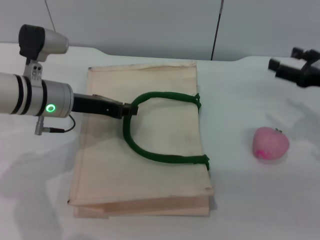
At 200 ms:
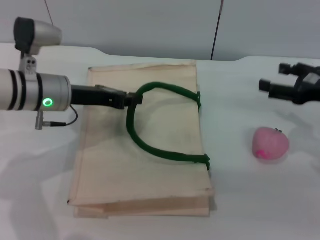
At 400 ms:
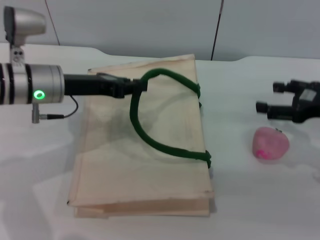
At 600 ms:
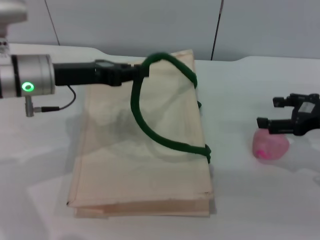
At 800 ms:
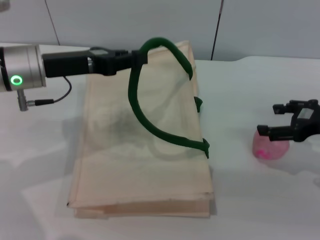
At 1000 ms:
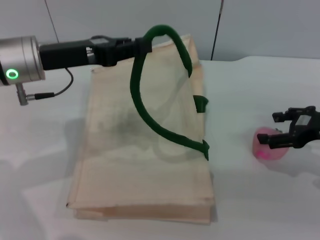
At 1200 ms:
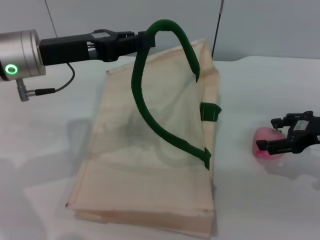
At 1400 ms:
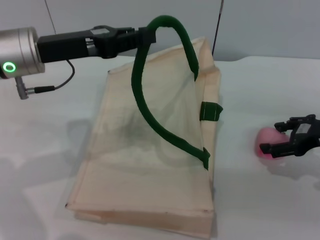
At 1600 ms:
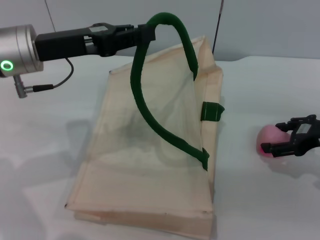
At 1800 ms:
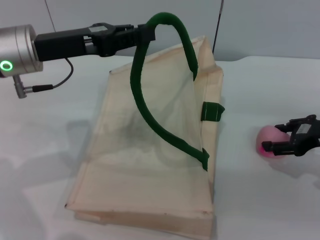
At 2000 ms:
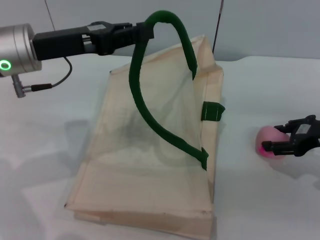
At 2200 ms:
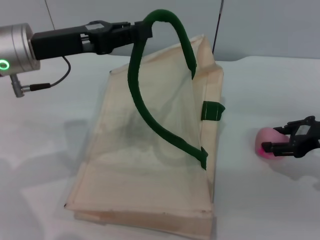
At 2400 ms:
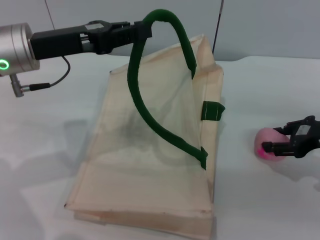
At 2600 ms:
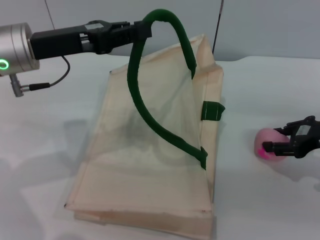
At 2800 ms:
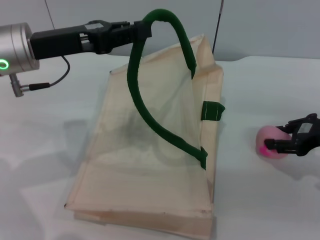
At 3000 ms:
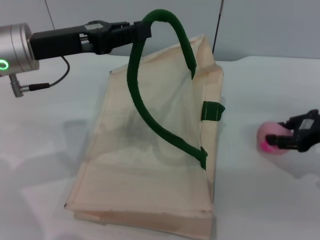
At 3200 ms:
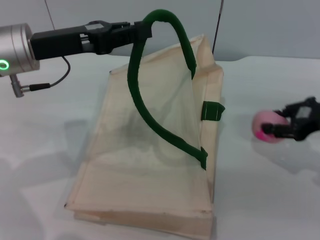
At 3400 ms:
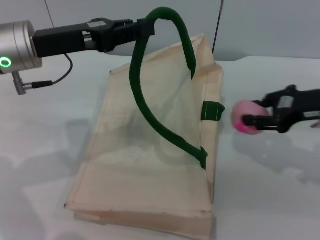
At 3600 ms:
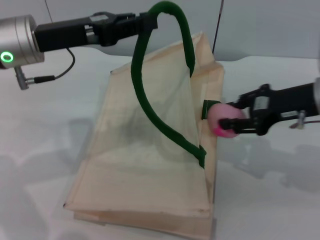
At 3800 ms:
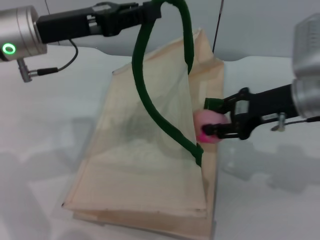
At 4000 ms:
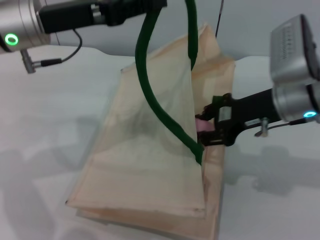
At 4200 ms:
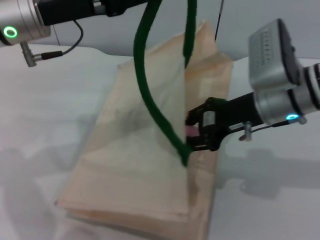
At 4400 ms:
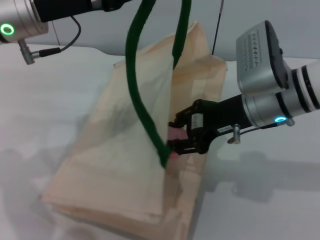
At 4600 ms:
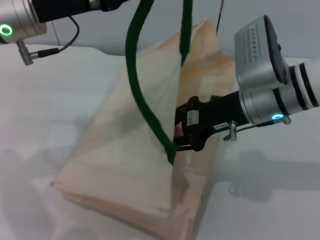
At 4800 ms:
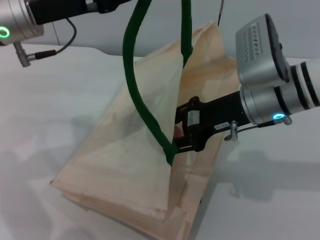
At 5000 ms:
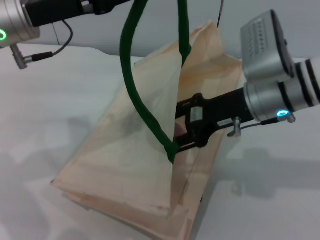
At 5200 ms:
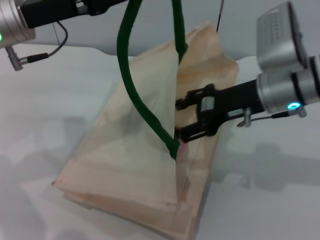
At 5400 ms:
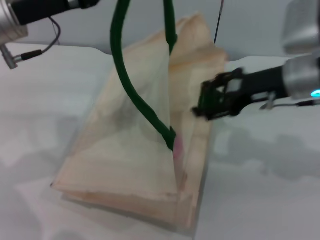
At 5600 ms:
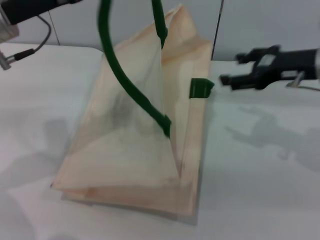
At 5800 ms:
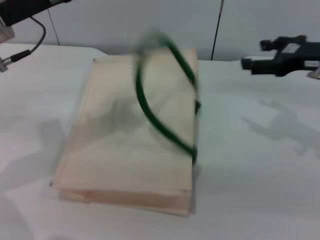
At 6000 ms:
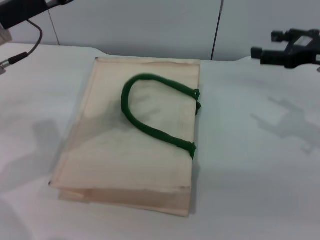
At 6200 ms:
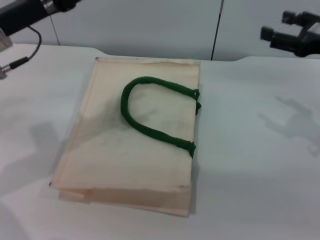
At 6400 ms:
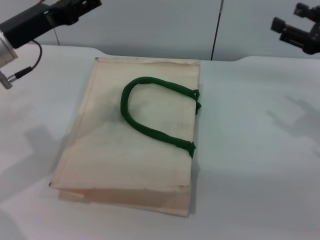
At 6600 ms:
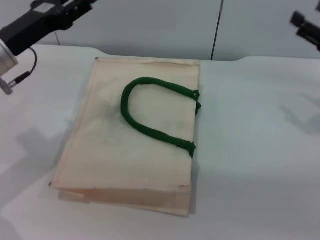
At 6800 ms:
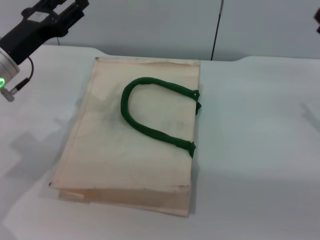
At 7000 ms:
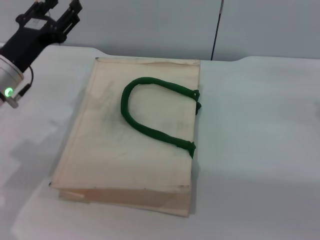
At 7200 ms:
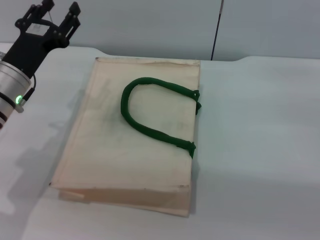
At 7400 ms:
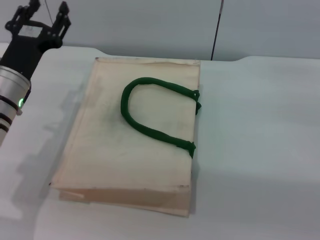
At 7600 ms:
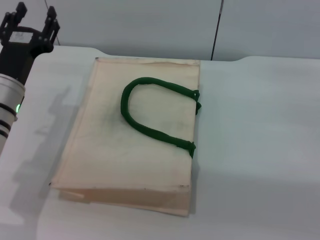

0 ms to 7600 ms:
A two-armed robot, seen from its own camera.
Task of the whole recording: pick up the peach from the table and place it in the white handbag.
Step, 0 ms to 3200 ms: Pick up the peach with the right gripper.
Step, 3600 ms to 5600 ms: Place the peach into the woven bag with the right gripper.
Step, 5800 ms to 6800 ms: Lower the woven bag with the left gripper to close it.
0 ms to 1600 ms: The left gripper moves upward, approximately 10 cm.
1600 ms to 3000 ms: The right gripper closes its fingers.
3000 ms to 4600 ms: The right gripper goes some 15 cm to the left.
4600 ms to 6000 ms: The left gripper moves approximately 5 cm, and opens its fingers. The right gripper goes approximately 15 cm to the right, and opens.
6000 ms to 7600 ms: The right gripper moves downward, to the right and backward, about 10 cm. The left gripper shifts approximately 10 cm downward, and opens its fingers.

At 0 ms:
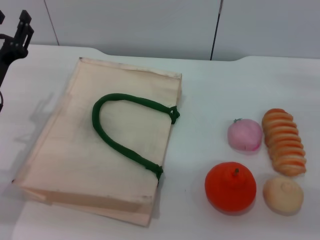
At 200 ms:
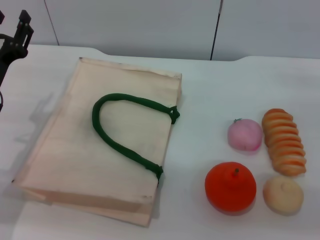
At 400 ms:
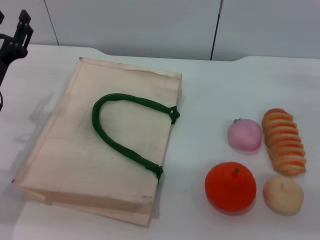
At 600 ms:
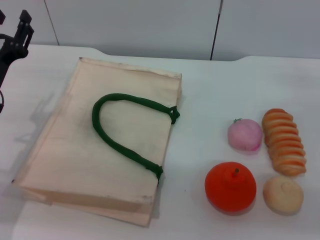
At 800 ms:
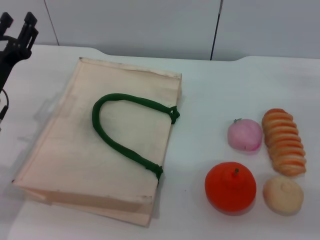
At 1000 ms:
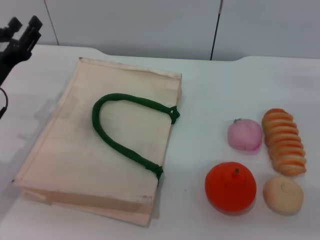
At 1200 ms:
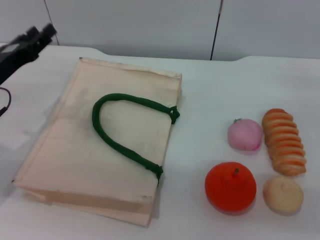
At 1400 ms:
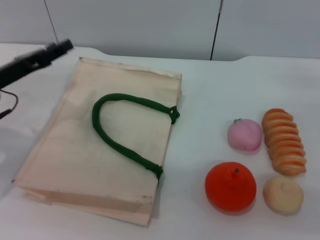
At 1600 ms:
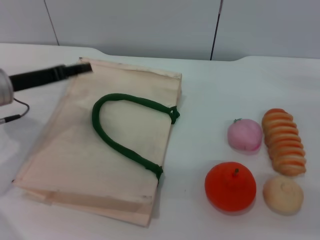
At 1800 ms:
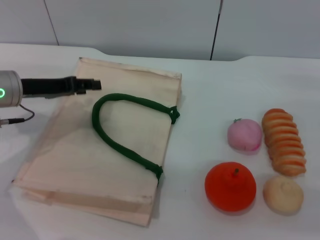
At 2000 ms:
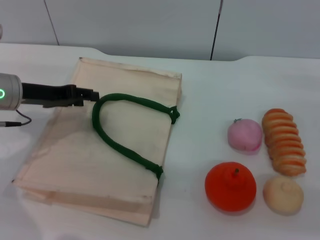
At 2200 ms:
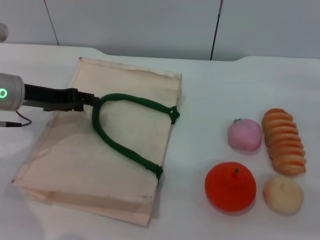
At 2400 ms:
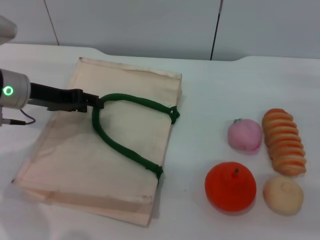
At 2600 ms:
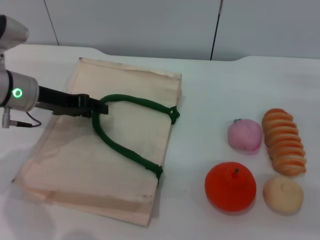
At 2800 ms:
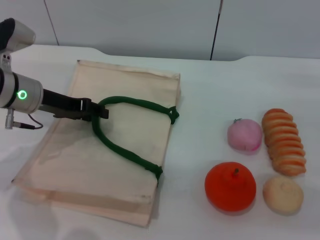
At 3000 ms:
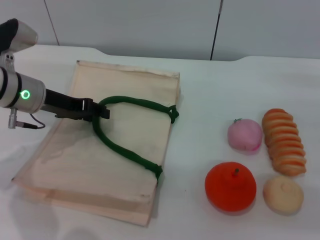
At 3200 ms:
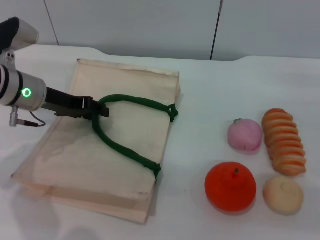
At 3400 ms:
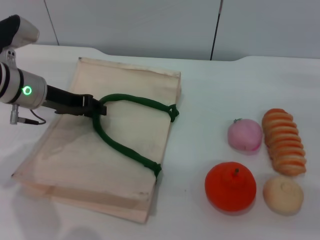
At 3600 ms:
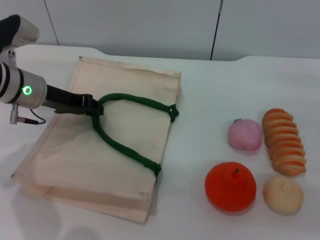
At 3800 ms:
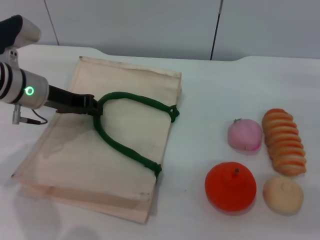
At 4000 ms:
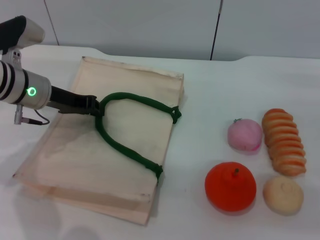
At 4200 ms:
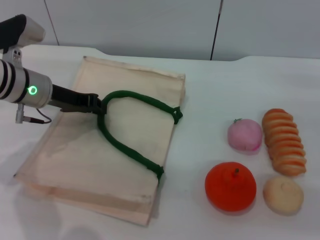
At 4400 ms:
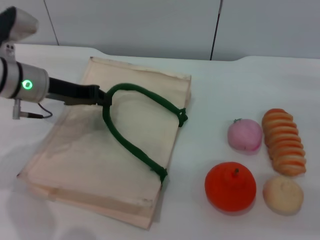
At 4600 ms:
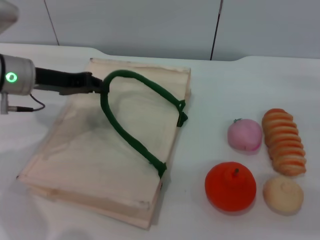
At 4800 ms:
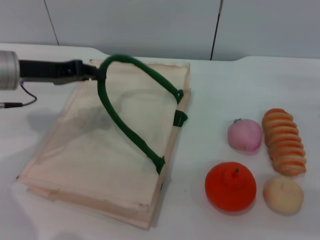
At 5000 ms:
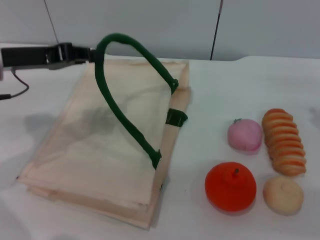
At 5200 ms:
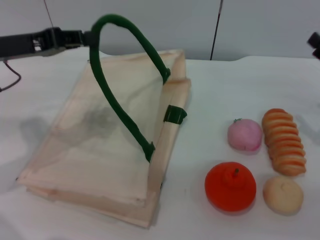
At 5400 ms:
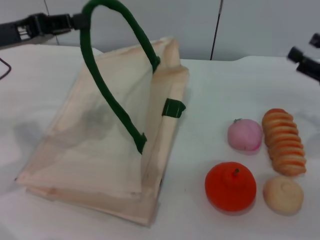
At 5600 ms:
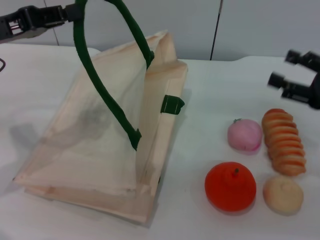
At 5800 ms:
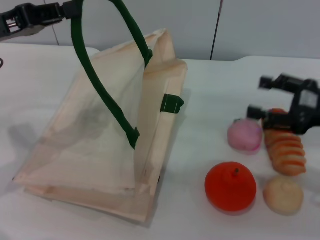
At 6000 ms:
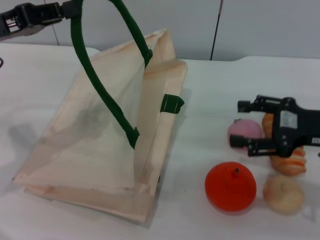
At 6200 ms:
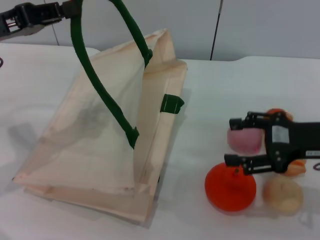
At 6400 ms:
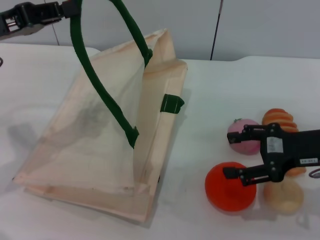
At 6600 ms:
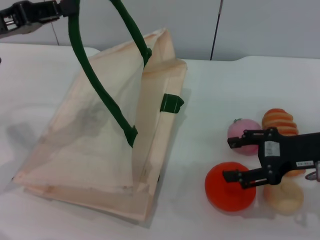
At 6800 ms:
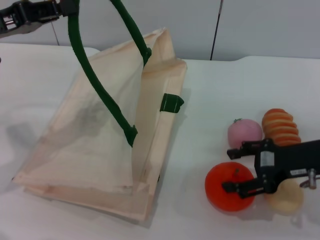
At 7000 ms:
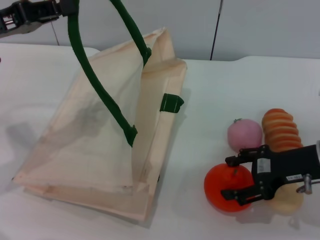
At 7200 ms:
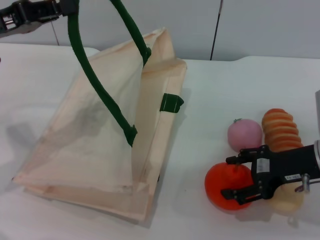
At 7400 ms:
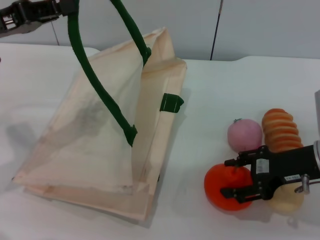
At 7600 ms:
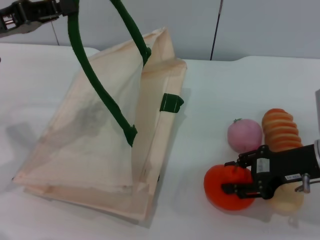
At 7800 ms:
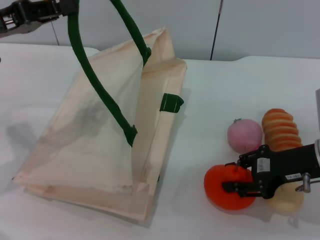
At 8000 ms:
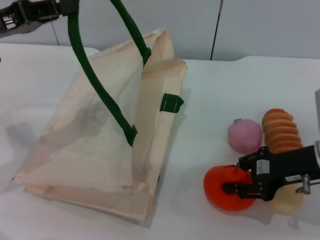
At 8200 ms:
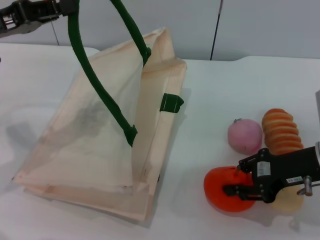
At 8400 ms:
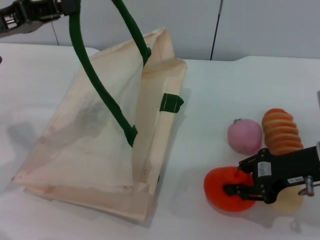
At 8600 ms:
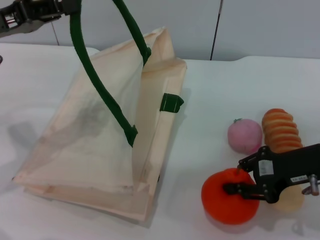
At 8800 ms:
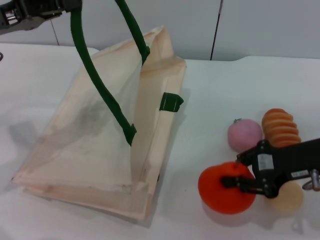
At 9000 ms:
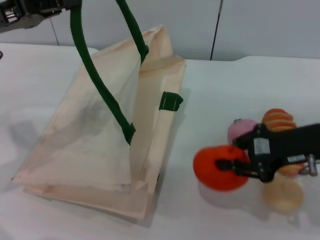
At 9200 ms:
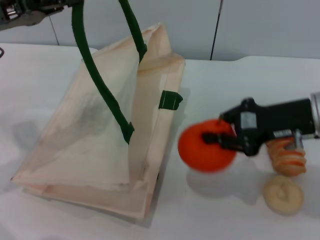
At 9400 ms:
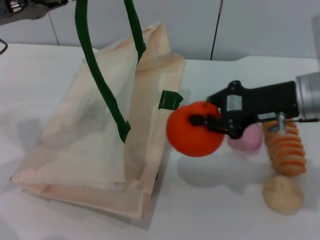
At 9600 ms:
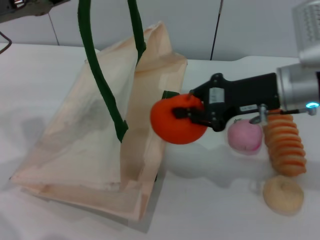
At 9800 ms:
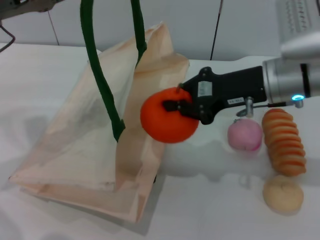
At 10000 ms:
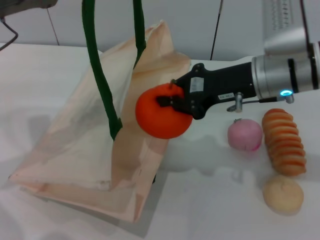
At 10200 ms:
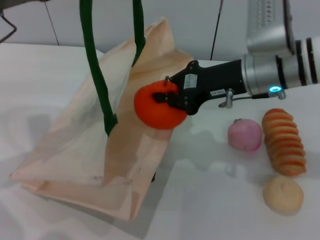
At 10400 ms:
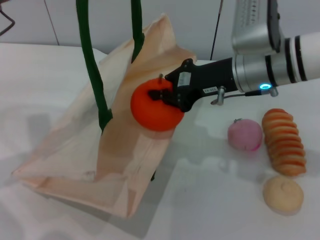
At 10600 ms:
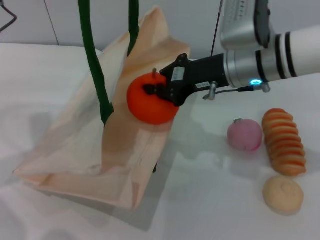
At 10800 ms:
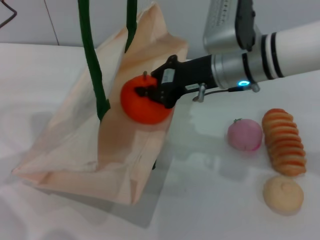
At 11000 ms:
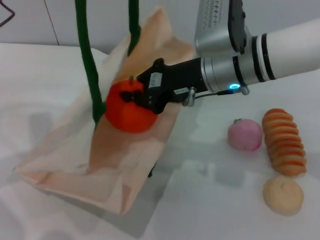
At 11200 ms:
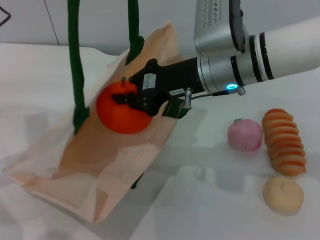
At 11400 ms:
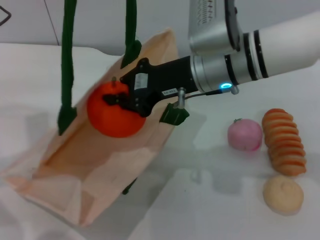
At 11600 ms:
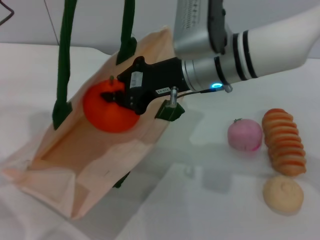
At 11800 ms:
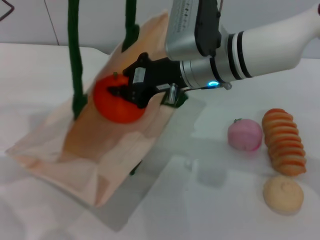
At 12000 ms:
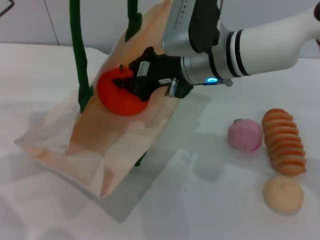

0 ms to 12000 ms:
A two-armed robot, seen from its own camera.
Task of the whole recording: pick up the orange from the table and place it in the white handbag.
Step, 0 ms to 5000 ms: Lift the woven bag with the left gripper to open it.
Step, 5200 ms to 9000 ms: Pick up the orange with the right gripper.
0 ms to 1600 ms: The left gripper shifts by approximately 5 cm.
3000 ms to 4400 ms: The left gripper closes up.
4400 ms to 6000 ms: The left gripper is displaced upward, backward and to the left by about 10 cm. Meanwhile the right gripper travels to the left and upward by about 10 cm.
7600 ms to 9000 ms: The right gripper closes up.
9000 ms to 10400 ms: The right gripper goes approximately 15 cm to the left and forward.
10400 ms to 12000 ms: The right gripper heads to the left, covering about 5 cm.

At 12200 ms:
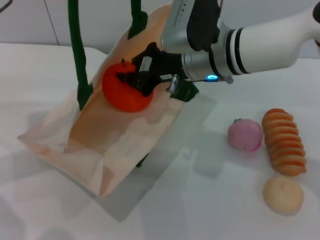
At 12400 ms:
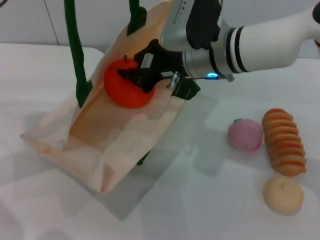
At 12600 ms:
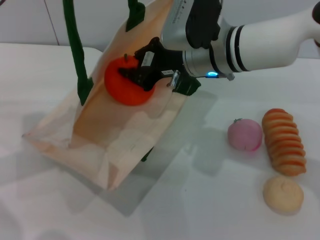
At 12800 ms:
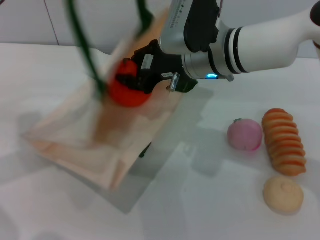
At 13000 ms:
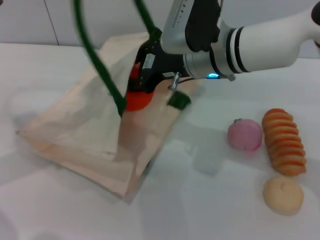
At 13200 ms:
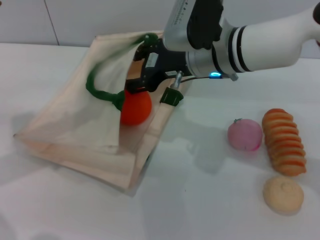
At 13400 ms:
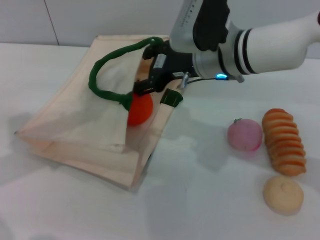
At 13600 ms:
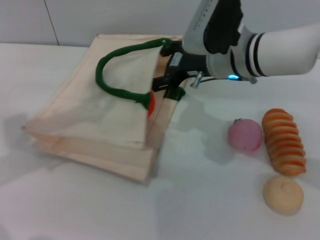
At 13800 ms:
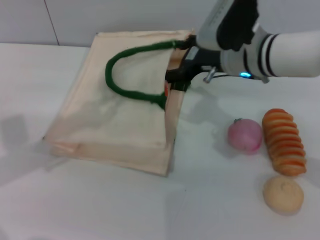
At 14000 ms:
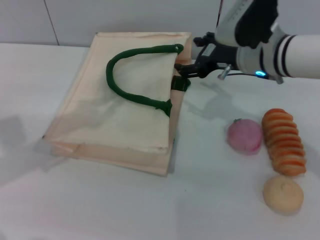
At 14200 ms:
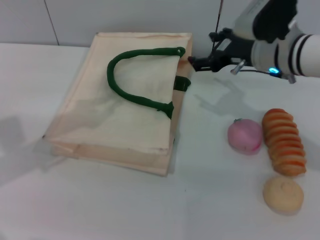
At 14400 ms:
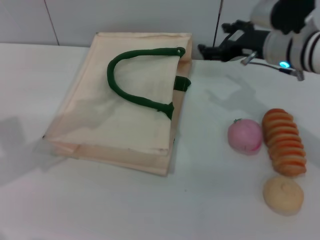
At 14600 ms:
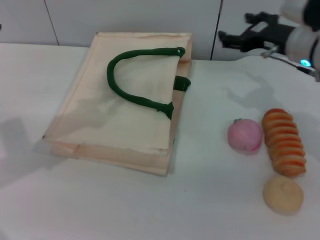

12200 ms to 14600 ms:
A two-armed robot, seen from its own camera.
Task of the whole recording: pick up the orange from the table and place it in the white handbag.
12200 ms to 13400 ms: The left gripper opens up; the right gripper opens its fingers.
13400 ms to 14600 ms: The right gripper heads to the right, covering roughly 15 cm.
